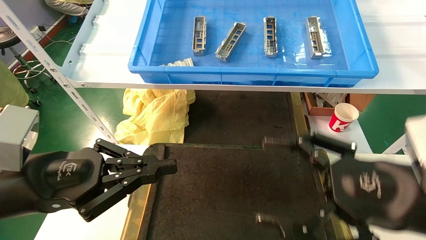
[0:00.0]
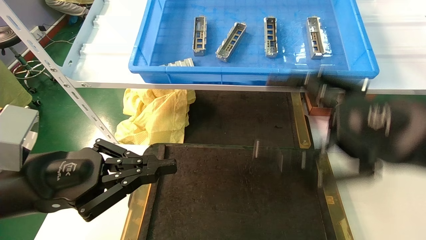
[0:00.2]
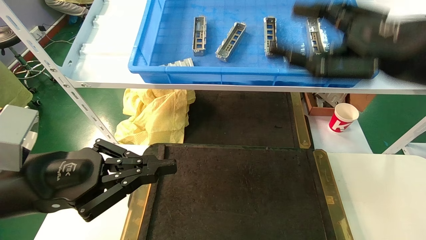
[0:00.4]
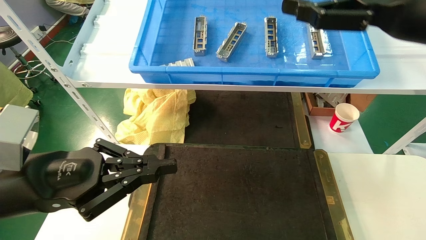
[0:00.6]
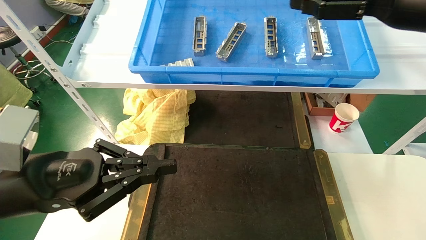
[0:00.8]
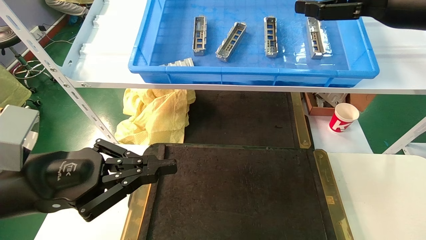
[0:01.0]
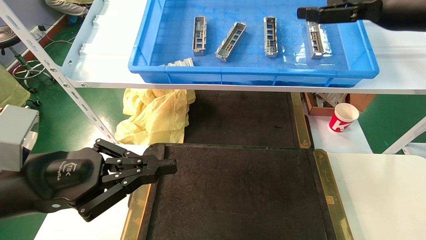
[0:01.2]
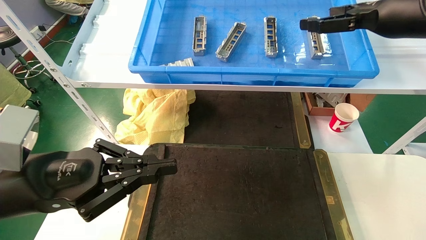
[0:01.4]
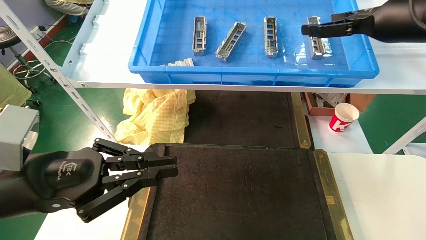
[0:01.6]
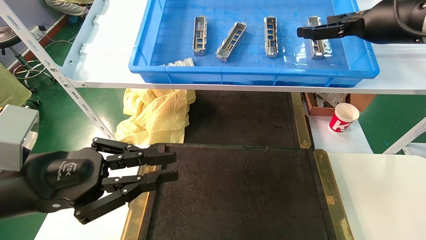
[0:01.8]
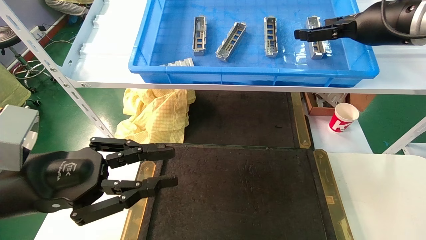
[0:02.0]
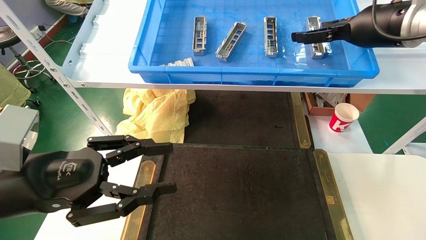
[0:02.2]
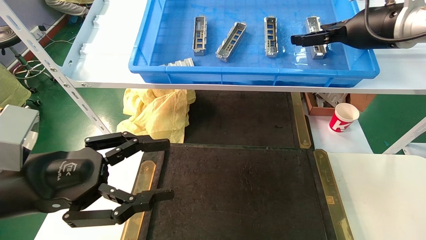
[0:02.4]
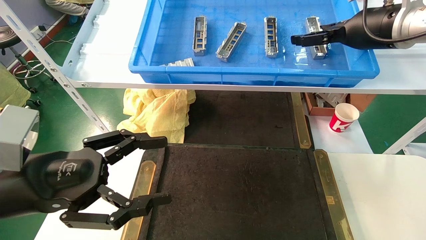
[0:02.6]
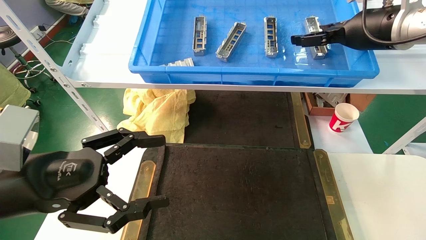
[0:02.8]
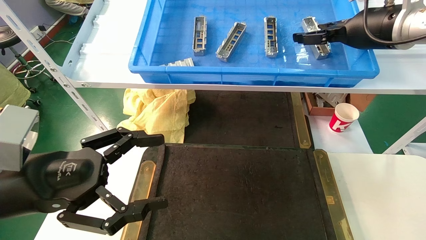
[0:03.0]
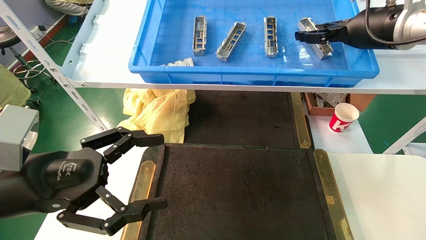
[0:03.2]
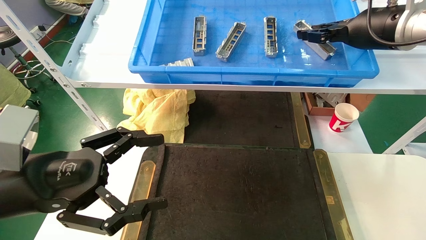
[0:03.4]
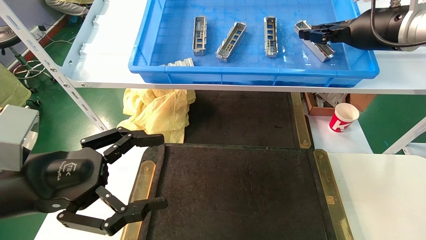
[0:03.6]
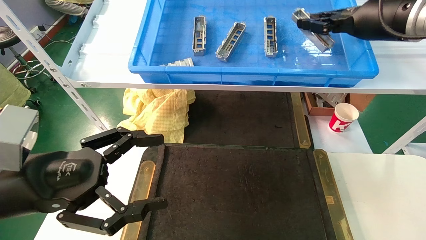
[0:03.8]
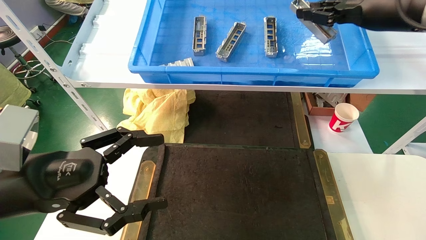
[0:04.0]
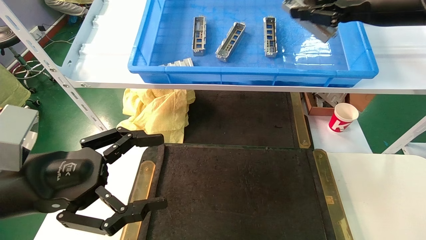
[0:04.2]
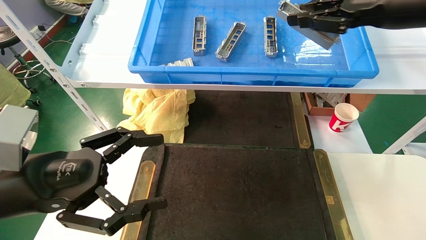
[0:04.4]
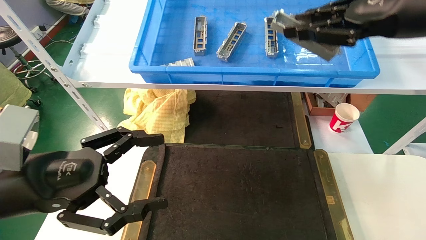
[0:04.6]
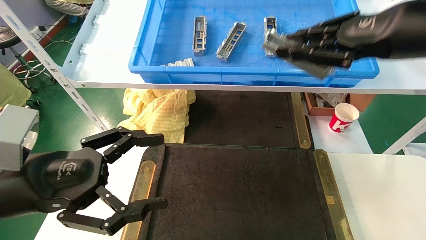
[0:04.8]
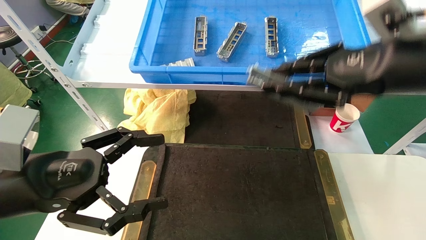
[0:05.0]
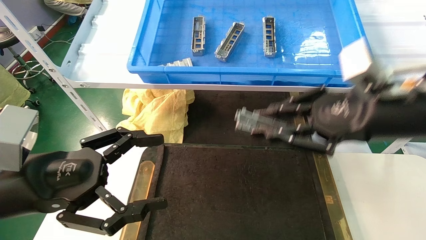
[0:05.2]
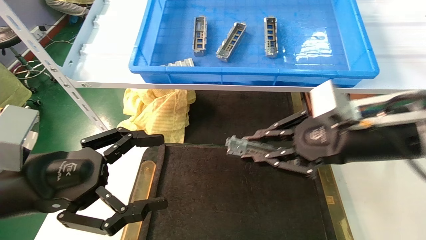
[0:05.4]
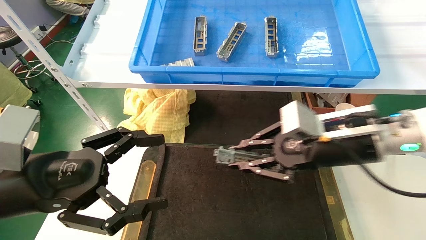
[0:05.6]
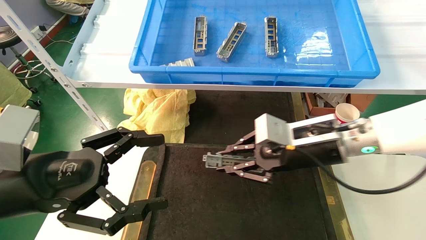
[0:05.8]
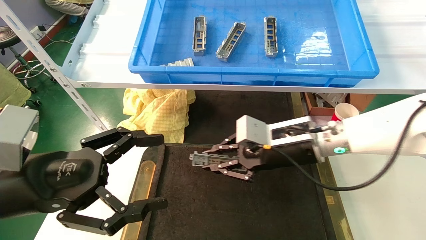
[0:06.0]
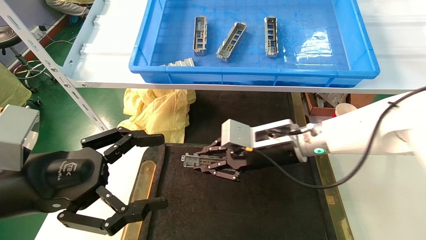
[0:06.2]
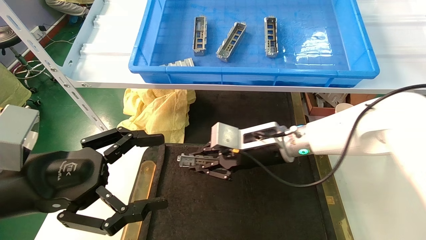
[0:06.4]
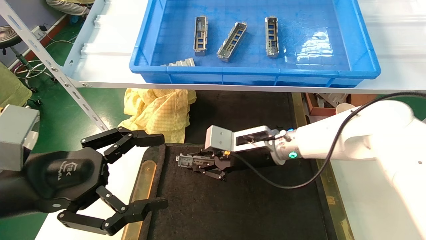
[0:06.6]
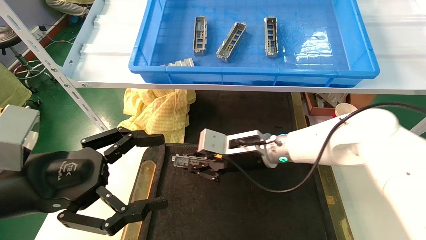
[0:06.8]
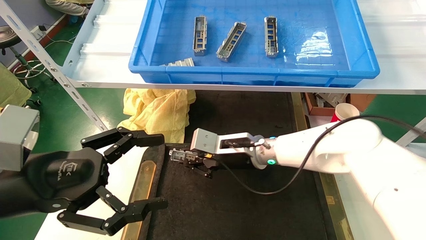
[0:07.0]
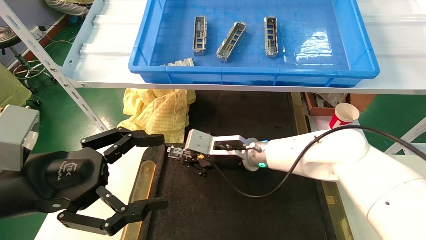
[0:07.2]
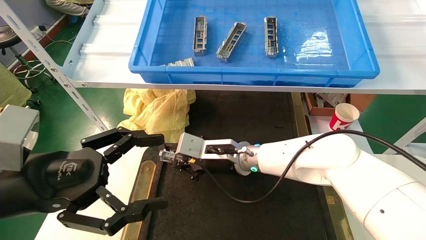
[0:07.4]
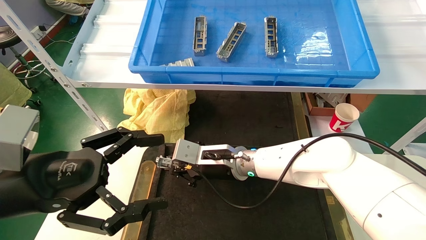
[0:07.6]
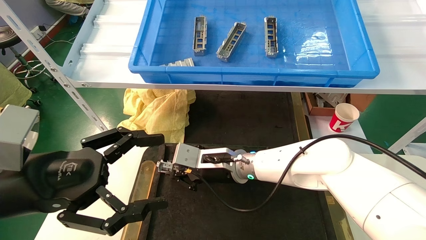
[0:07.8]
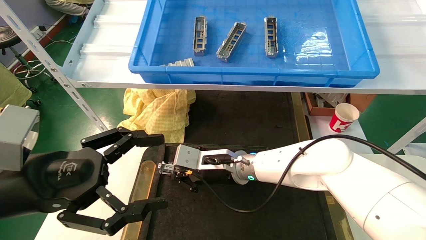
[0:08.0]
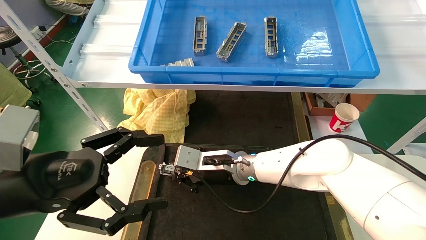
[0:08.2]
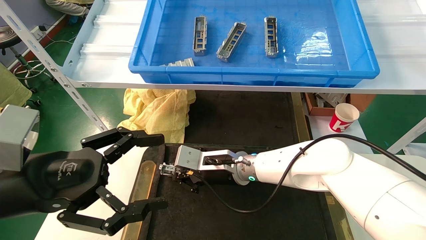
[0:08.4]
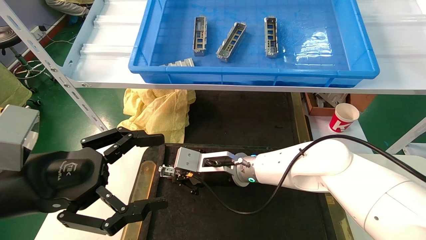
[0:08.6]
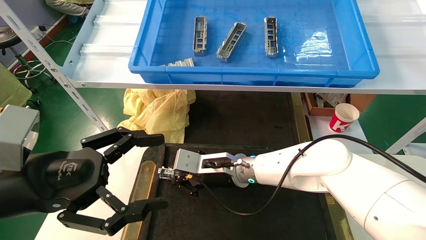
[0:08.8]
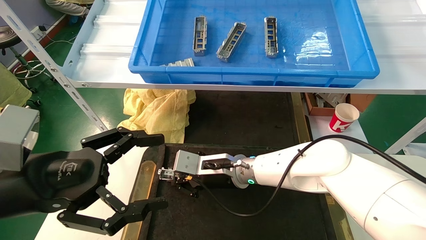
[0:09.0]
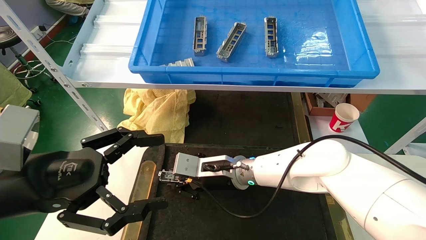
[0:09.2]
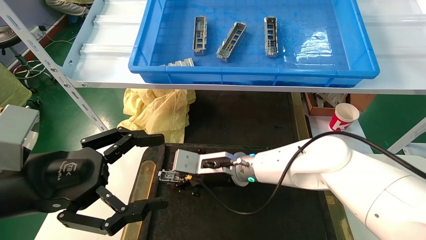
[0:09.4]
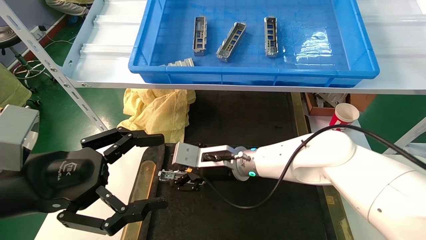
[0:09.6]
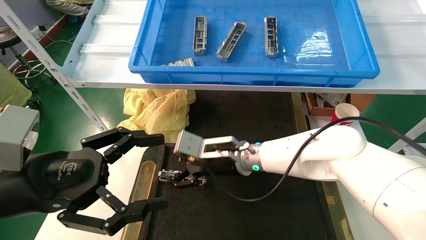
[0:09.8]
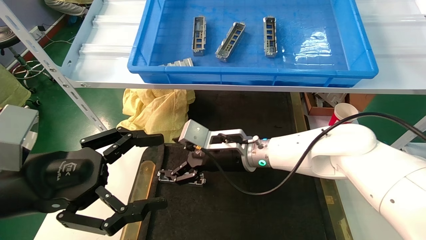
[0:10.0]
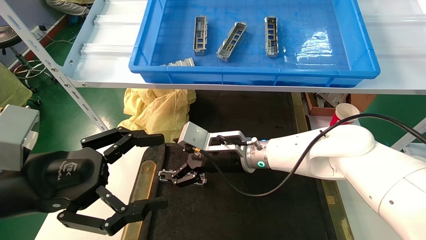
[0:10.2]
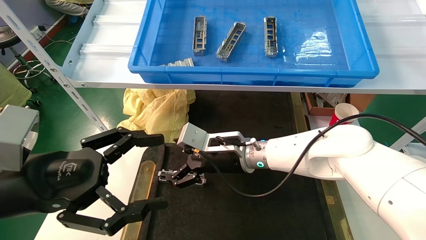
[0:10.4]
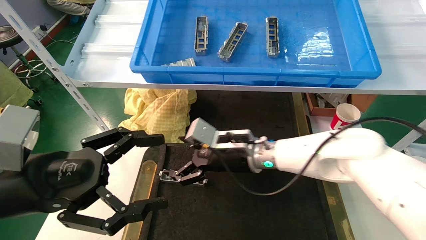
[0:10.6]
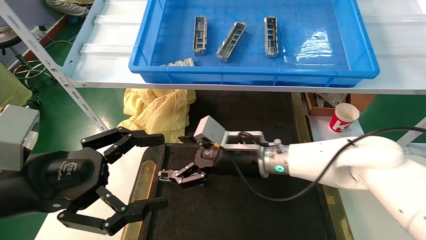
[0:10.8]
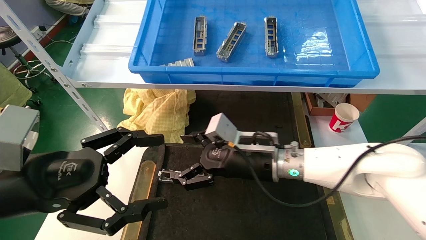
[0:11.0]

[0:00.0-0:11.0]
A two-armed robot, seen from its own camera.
Task of the whole recording: grasp the part and place them on the black container.
Step, 0:00.4 to 0:04.0: Pick up and lift the front USB bracket from the feeding area.
Step, 0:04.2 to 0:09.8: Place the front USB bracket into the box.
0:00.0 to 0:01.6: The right gripper heads upward and forward, covering about 25 cm.
0:01.6 to 0:03.2: The right gripper closes. Meanwhile the left gripper opens up.
0:03.2 to 0:04.8: The right gripper shifts some 15 cm backward, and closes up.
0:04.8 to 0:06.2: The right gripper shifts roughly 25 cm downward, to the left and forward.
0:06.2 to 0:07.8: The right gripper travels to the left and downward by approximately 15 cm.
0:07.8 to 0:09.4: The grippers stay close to where they were, moving slightly.
0:09.4 to 0:11.0: The right gripper goes approximately 5 cm to the right, and opens up.

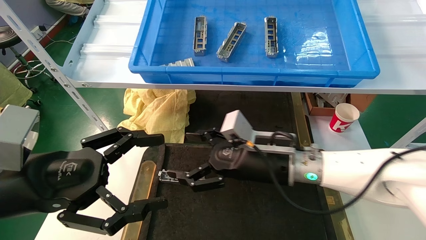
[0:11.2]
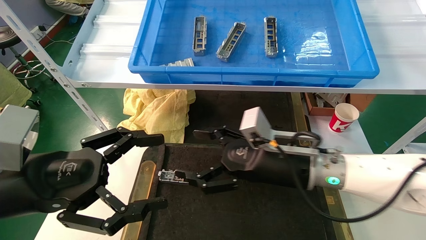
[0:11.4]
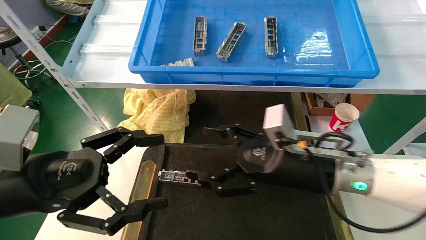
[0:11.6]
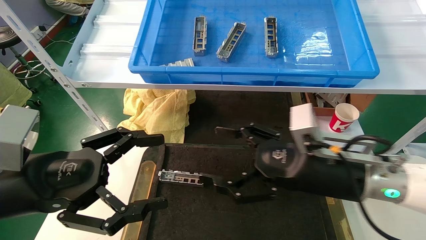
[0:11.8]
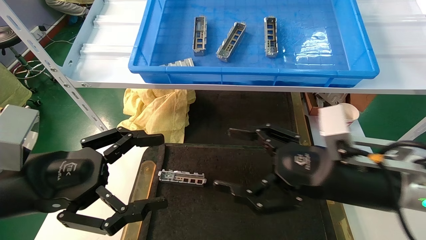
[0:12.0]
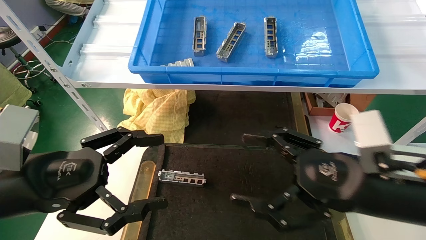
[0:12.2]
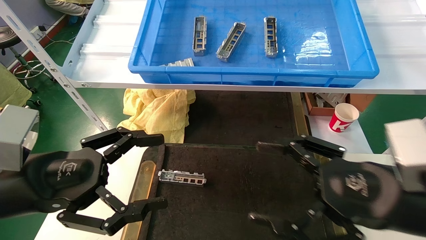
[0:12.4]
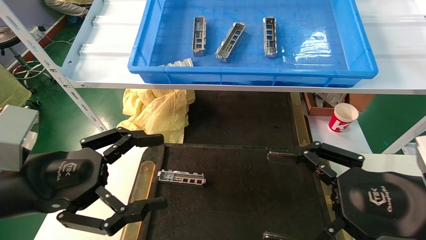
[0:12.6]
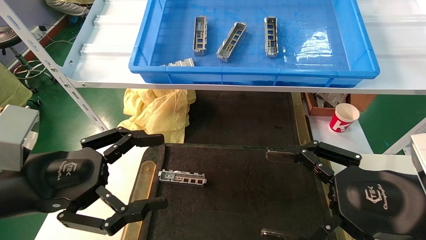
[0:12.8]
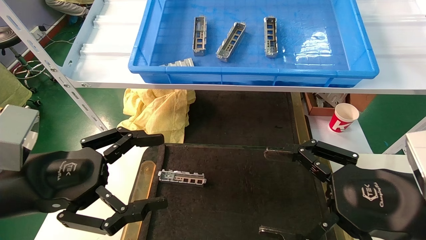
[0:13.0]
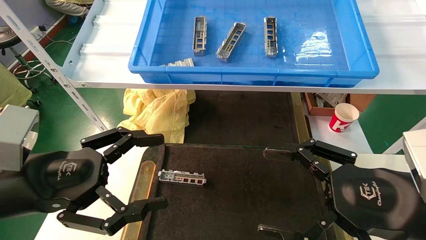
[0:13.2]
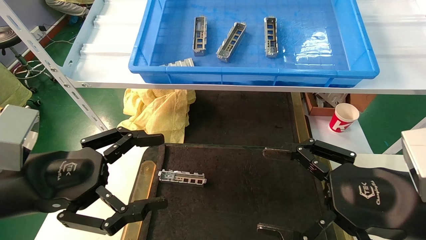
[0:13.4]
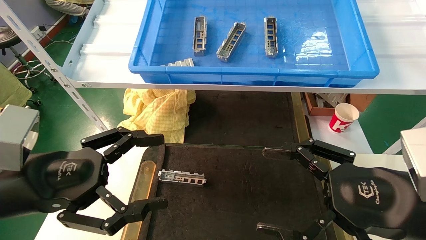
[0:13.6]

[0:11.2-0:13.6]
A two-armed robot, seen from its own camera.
Task of the whole recording: grasp the part and place them on the black container.
0:11.2 to 0:12.4: The right gripper heads to the right and backward, covering about 20 cm.
0:12.4 to 0:13.6: There are only small adjustments of the grippers.
